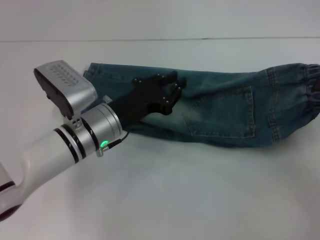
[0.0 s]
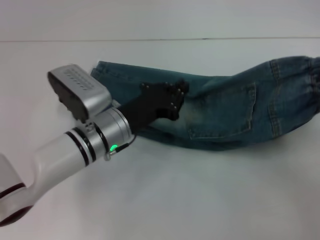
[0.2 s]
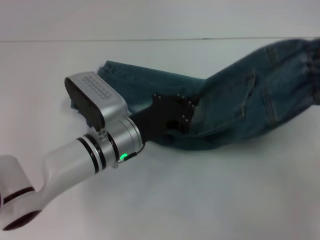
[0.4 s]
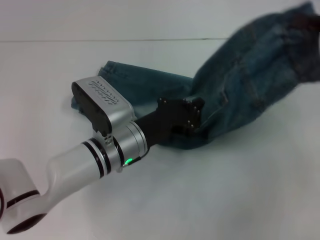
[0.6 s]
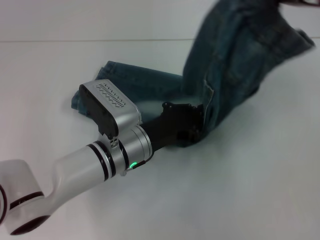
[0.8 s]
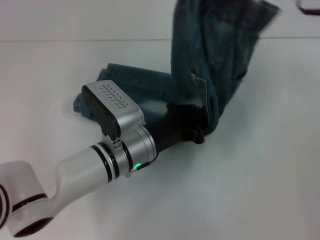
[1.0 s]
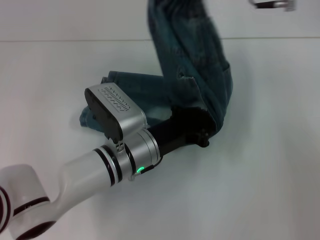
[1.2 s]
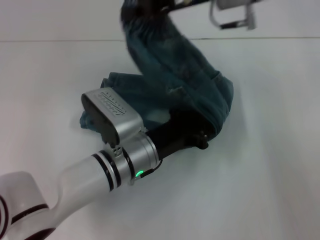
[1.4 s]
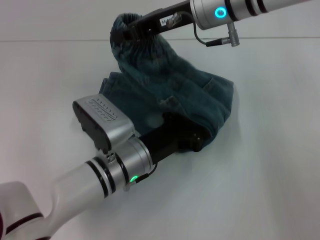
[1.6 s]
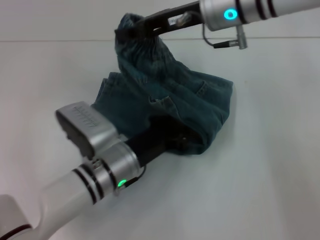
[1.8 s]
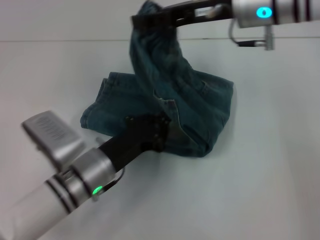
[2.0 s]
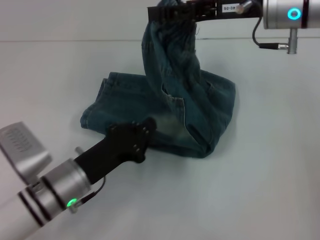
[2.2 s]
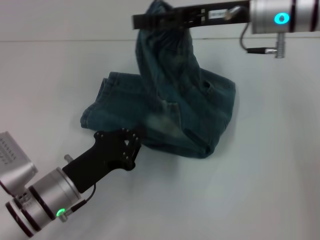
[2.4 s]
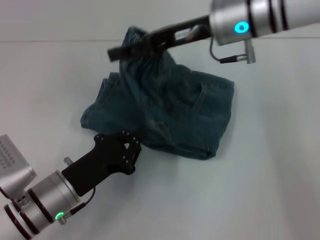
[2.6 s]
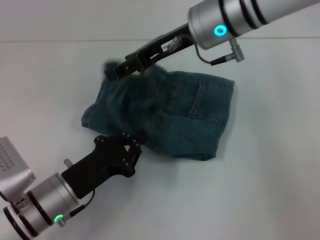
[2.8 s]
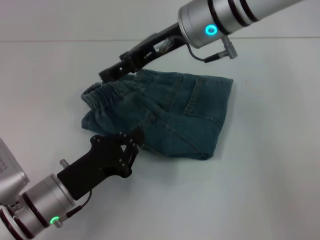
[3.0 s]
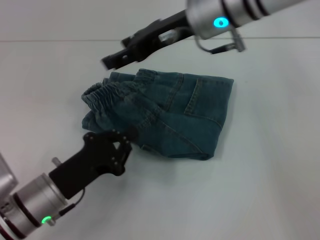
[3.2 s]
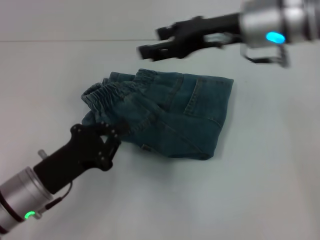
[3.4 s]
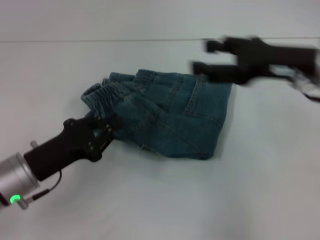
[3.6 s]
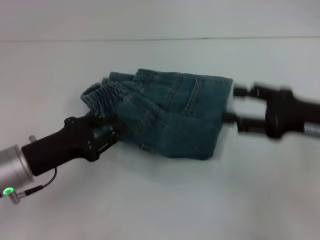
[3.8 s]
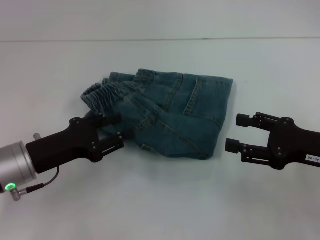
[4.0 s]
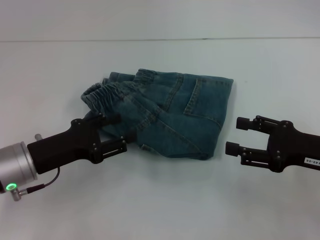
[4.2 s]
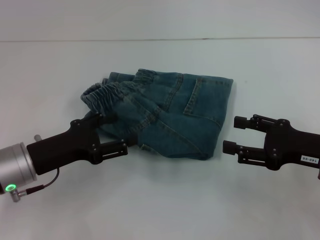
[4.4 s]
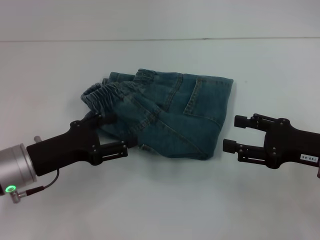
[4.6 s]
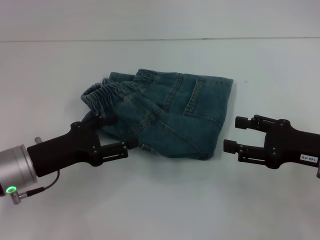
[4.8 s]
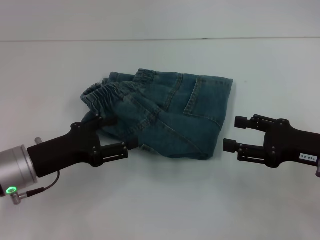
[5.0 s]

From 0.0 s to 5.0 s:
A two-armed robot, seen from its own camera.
Step, from 2.0 s to 3.2 s: Fold to the left with your right hand.
From 0.0 s to 1.6 s: The right gripper moves to the left and forward, about 35 cm; the left gripper moves about 5 cm, and closes.
From 1.6 s to 3.4 s: The left gripper is displaced to the left and backward by some 15 cm. The right gripper swings left and right, about 10 cm each way, with 2 reversals, and opens.
From 3.4 s to 5.0 s: The right gripper is displaced downward, backward and to the right by some 20 cm, while the left gripper opens its fingers.
